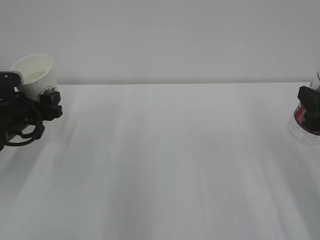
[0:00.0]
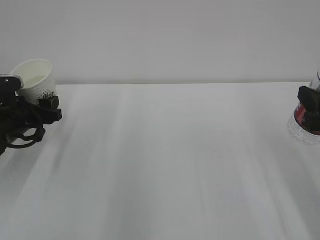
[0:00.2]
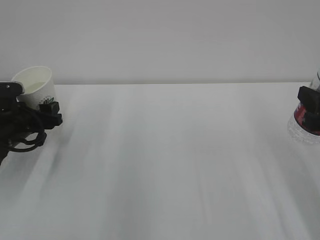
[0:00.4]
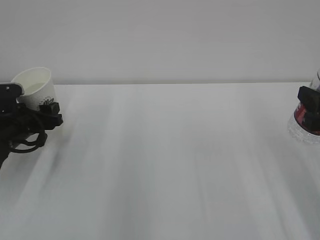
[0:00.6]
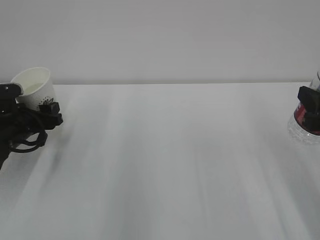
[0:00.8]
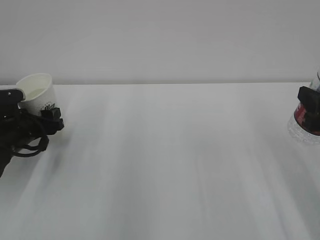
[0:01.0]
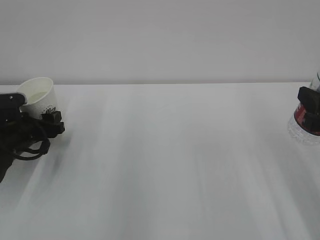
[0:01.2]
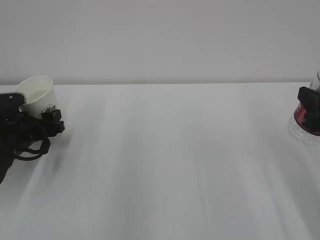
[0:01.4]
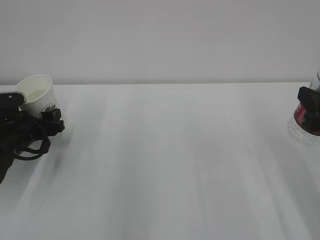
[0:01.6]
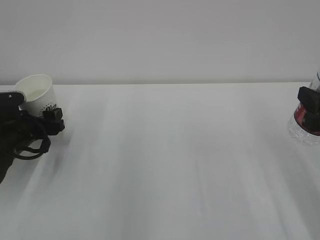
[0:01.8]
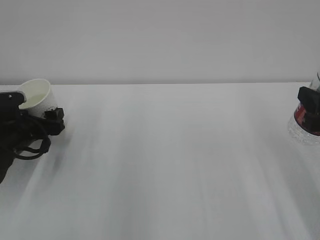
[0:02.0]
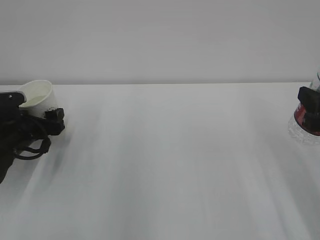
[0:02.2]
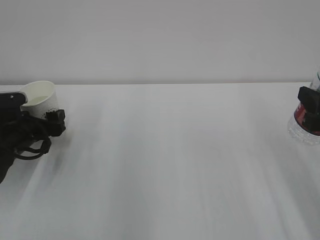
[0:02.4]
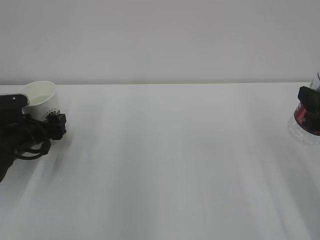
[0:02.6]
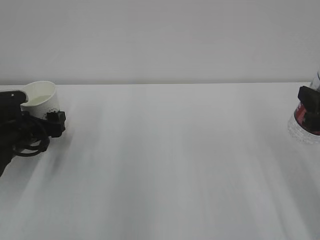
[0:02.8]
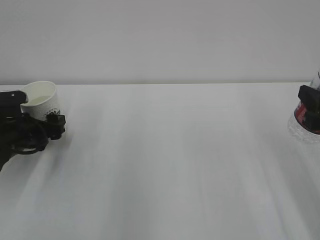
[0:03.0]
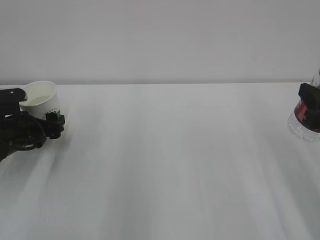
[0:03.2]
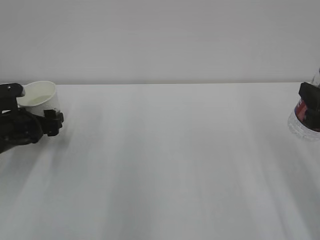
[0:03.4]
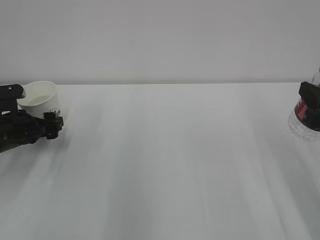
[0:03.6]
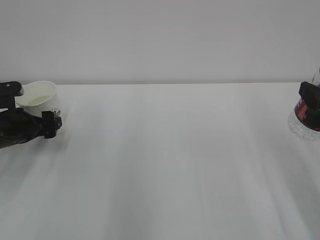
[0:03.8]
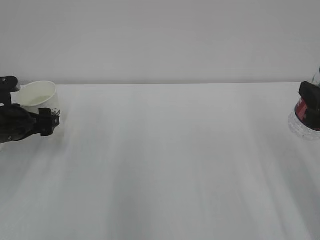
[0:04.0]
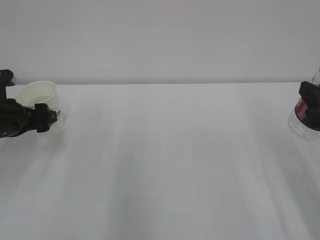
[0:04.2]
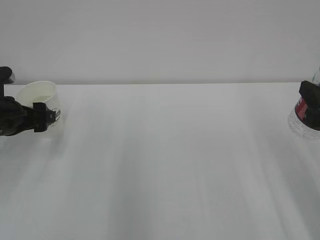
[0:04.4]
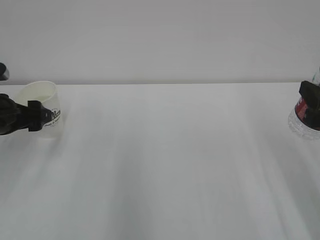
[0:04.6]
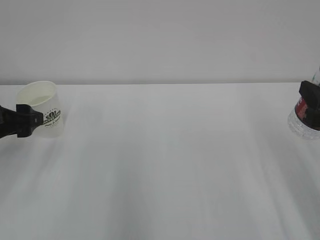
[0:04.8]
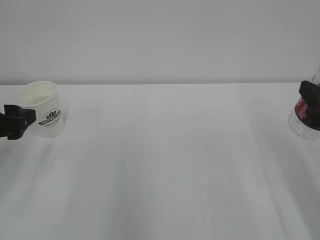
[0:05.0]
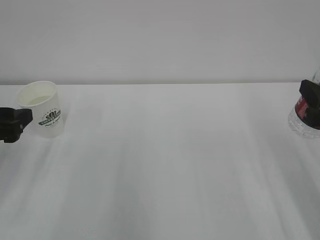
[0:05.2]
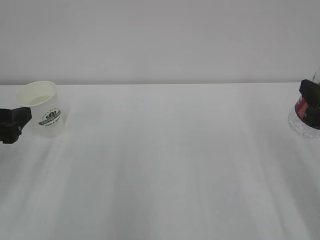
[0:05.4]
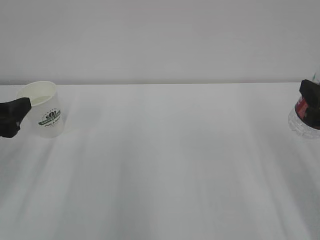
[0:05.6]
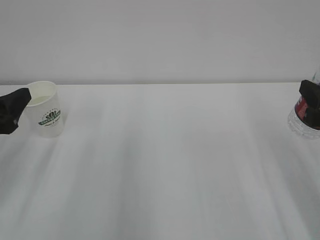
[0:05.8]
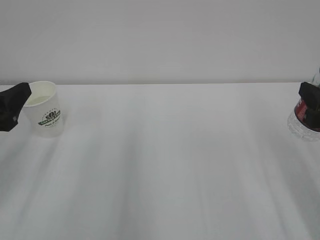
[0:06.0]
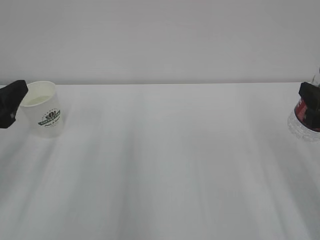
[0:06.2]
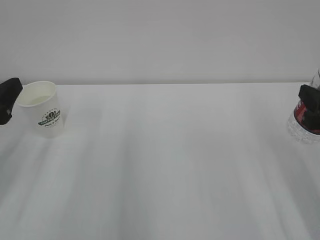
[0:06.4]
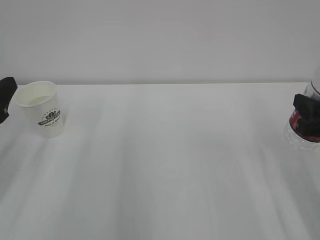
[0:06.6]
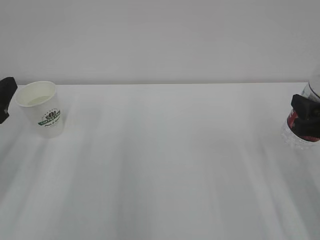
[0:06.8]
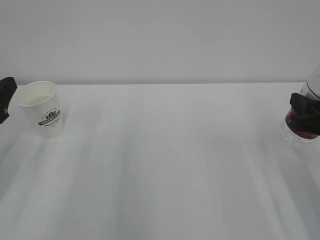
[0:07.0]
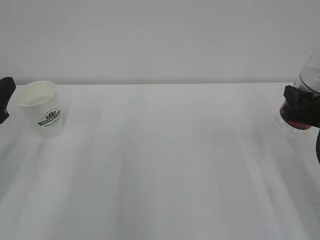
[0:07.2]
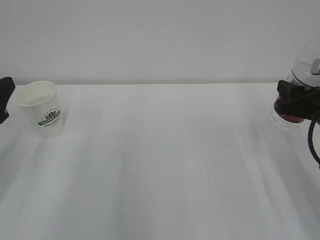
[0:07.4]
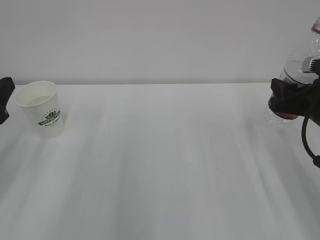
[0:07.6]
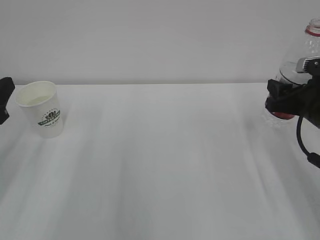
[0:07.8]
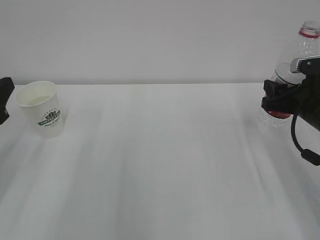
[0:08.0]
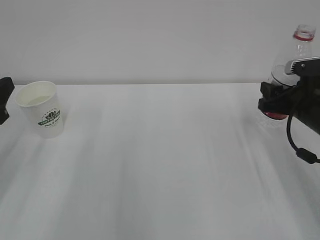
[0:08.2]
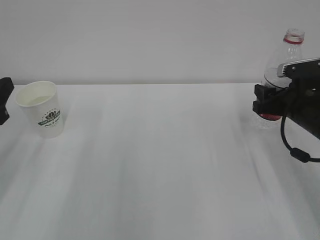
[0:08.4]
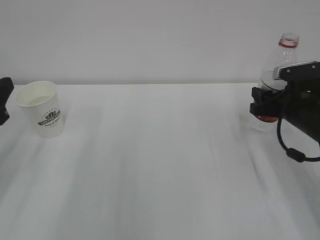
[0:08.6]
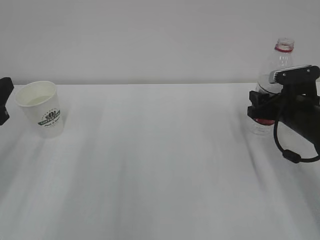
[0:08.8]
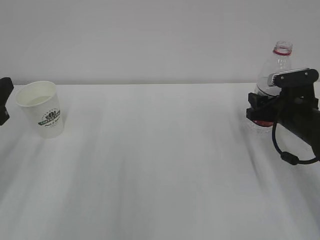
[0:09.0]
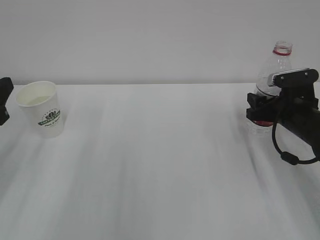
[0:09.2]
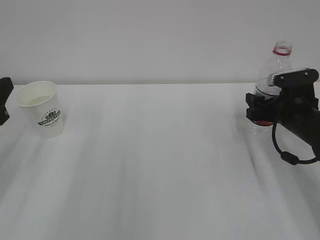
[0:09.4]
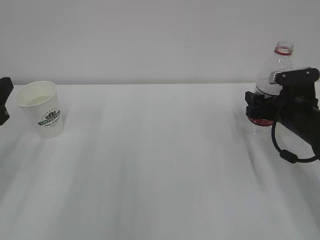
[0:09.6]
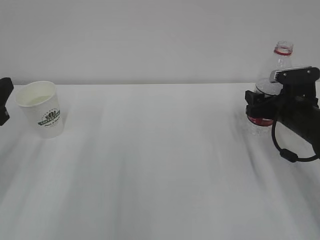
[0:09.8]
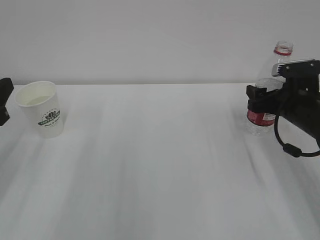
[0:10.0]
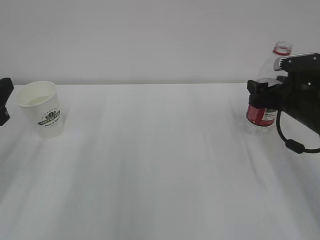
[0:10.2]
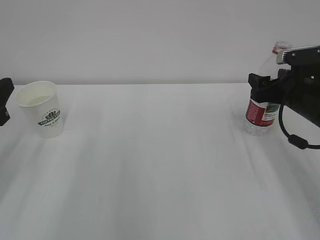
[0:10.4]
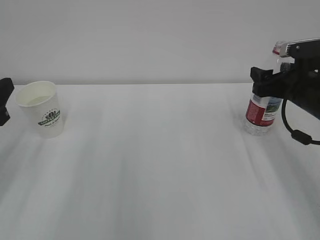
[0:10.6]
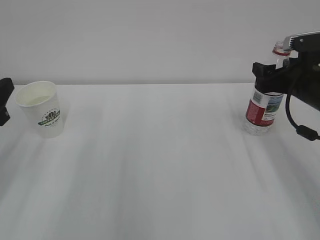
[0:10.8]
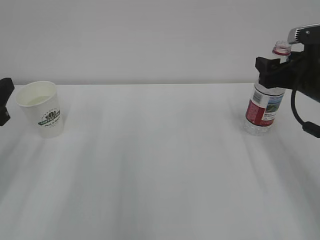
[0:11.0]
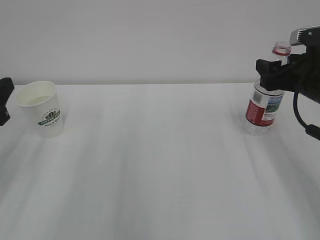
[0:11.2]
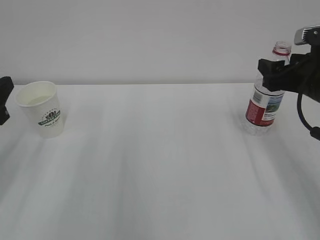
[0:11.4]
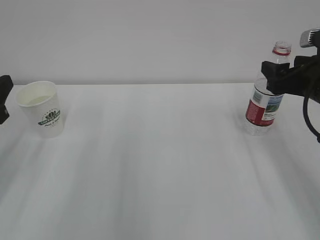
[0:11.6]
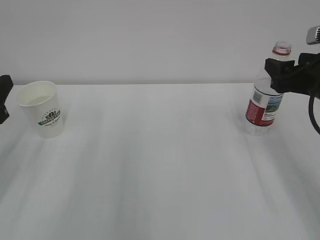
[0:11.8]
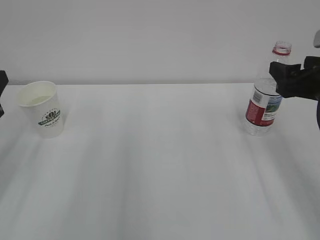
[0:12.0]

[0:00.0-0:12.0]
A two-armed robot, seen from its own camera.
0:00.0 to 0:01.6: The grippers move only a little.
0:01.6 to 0:03.0: The left gripper opens up.
0:03.0 to 0:04.4: The left gripper travels upward by approximately 10 cm.
0:04.4 to 0:06.0: The left gripper is displaced backward by some 10 cm.
0:06.0 to 0:07.6: The right gripper heads forward, covering roughly 10 cm.
0:07.6 to 0:09.0: The right gripper shifts roughly 10 cm downward and forward.
0:09.0 to 0:10.4: The right gripper opens.
0:10.4 to 0:12.0: The right gripper heads backward and upward, covering some 10 cm.

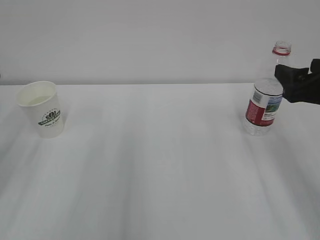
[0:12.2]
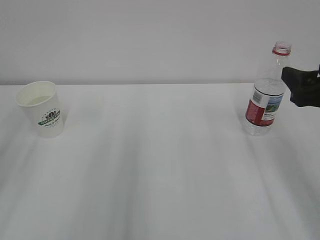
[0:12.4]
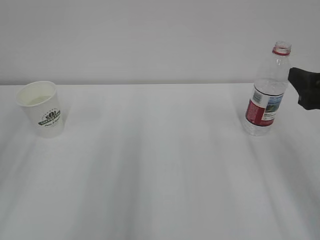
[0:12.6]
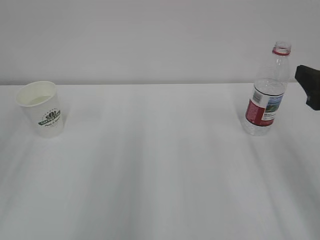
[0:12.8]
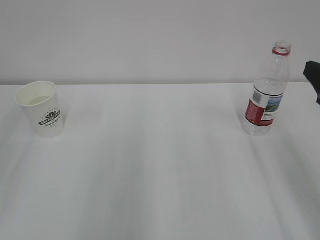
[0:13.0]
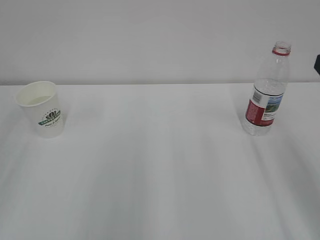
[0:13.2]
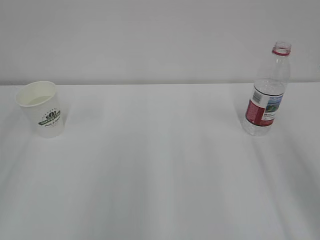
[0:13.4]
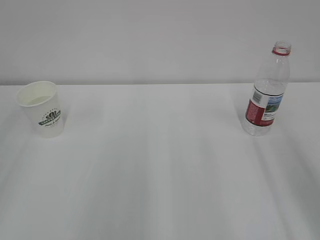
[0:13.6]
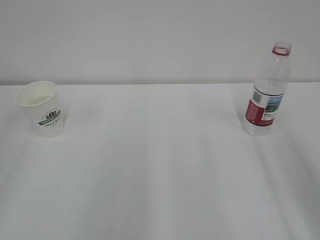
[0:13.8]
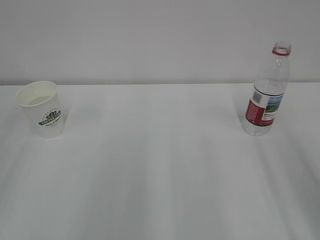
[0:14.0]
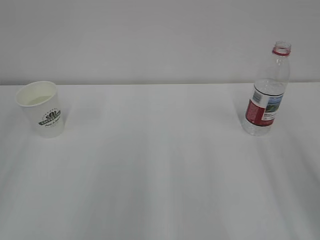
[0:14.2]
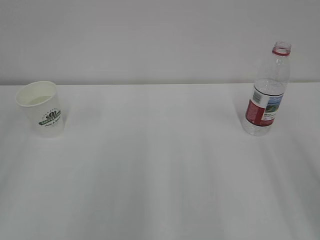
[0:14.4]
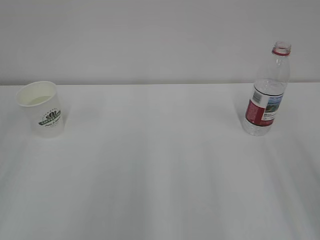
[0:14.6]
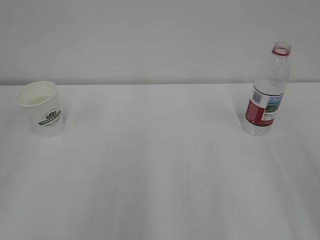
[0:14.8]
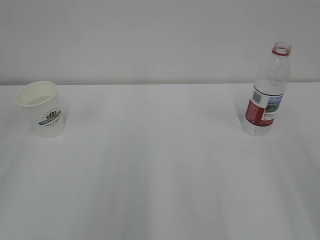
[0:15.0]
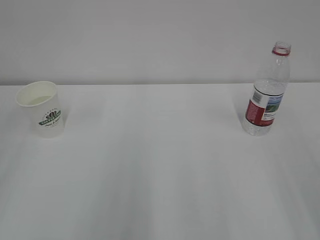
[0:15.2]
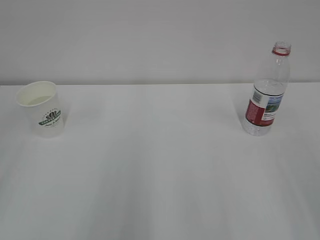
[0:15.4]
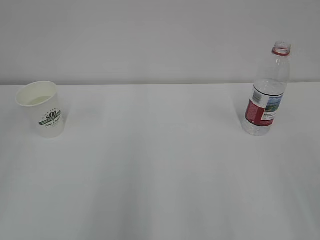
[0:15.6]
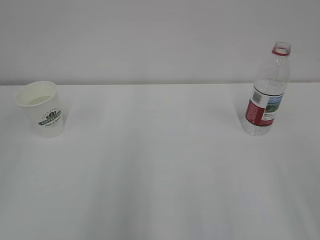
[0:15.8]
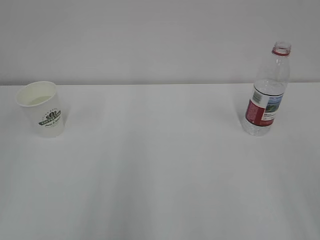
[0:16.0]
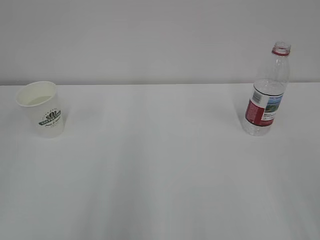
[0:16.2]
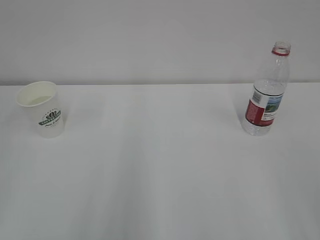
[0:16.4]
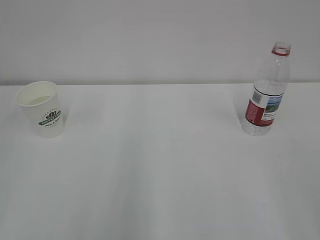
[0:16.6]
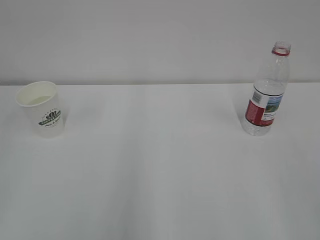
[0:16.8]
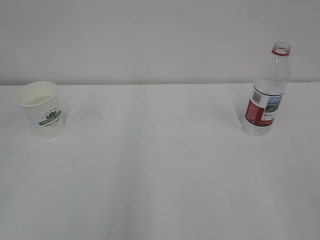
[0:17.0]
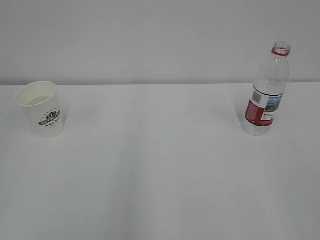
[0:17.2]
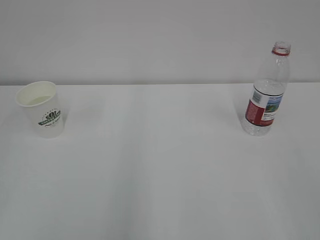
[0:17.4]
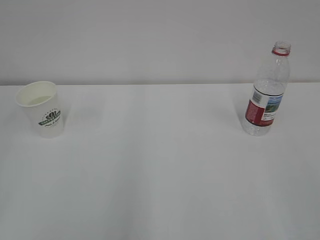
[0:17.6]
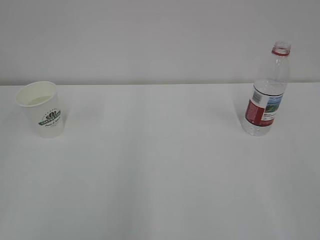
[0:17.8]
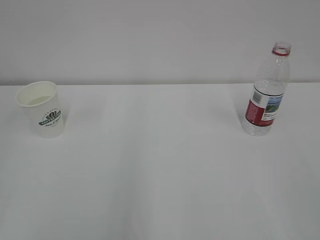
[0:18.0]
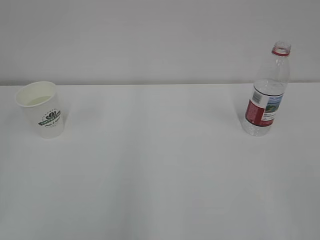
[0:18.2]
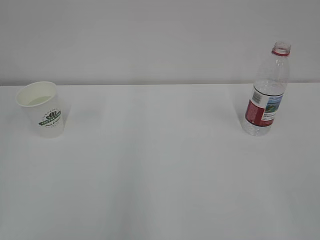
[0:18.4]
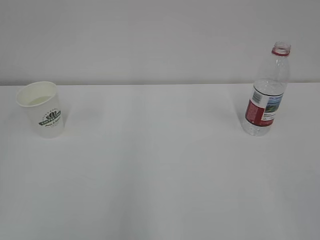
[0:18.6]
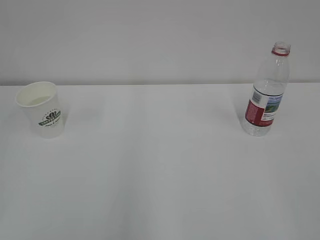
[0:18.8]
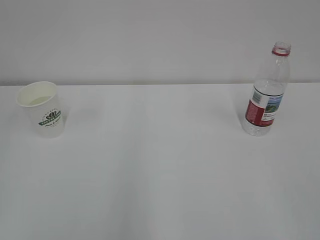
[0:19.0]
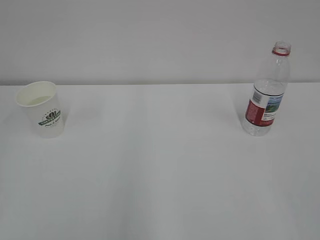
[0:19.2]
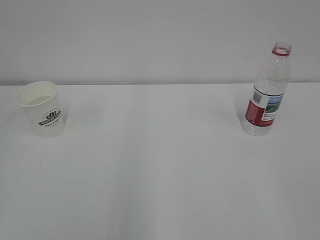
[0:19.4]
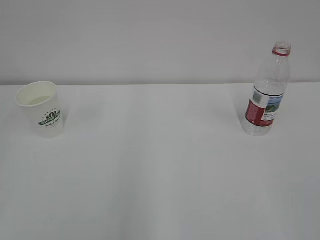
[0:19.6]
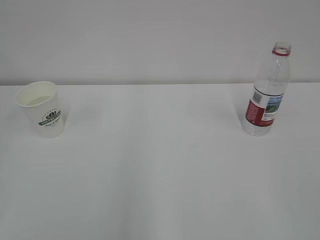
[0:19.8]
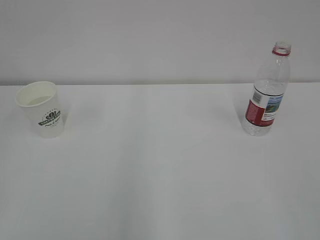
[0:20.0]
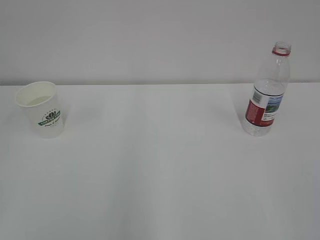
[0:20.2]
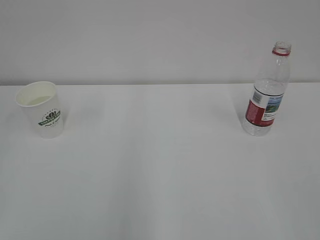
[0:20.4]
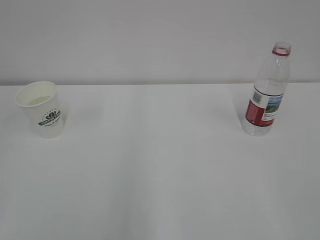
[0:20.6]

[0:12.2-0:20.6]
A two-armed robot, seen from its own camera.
0:12.2 to 0:13.6: The right gripper heads backward and upward, covering about 10 cm.

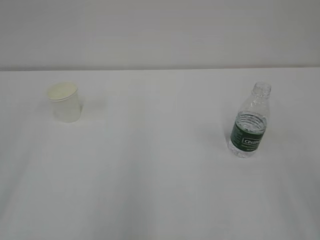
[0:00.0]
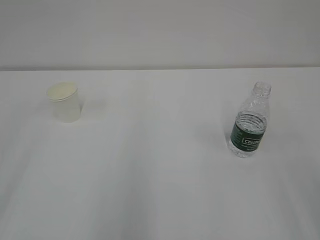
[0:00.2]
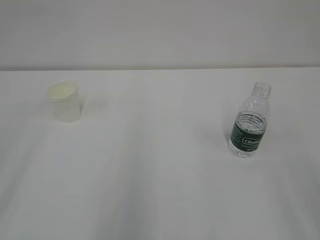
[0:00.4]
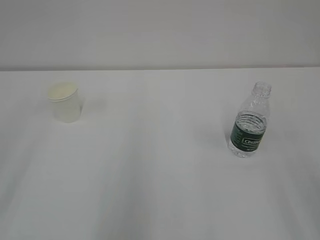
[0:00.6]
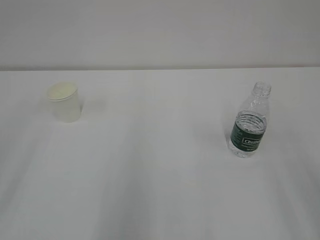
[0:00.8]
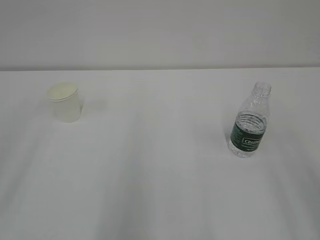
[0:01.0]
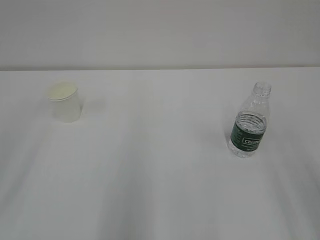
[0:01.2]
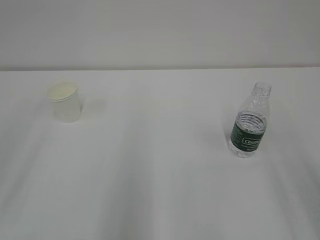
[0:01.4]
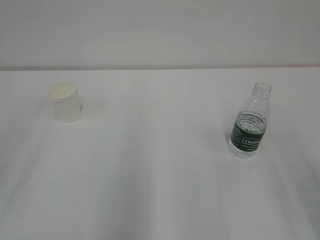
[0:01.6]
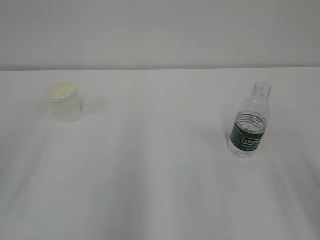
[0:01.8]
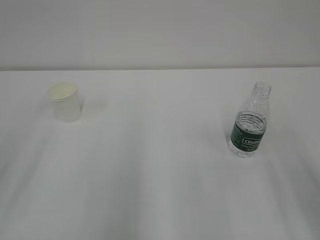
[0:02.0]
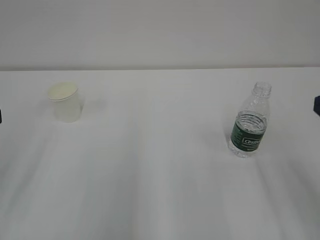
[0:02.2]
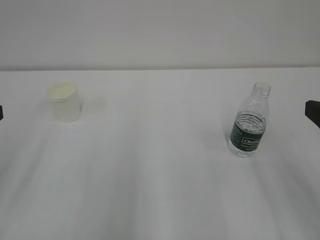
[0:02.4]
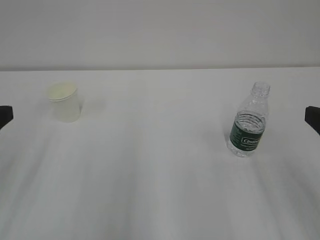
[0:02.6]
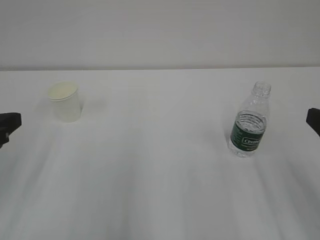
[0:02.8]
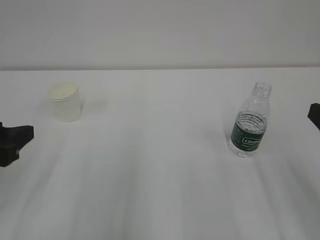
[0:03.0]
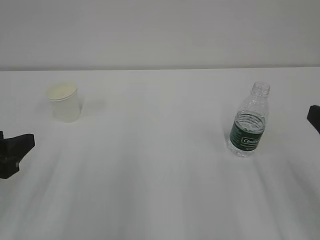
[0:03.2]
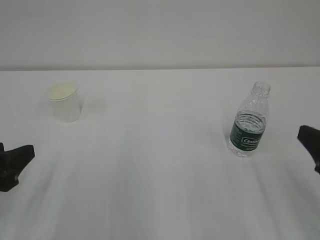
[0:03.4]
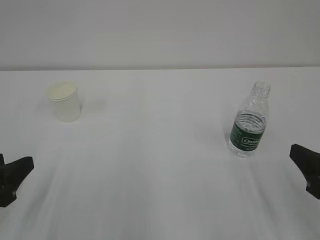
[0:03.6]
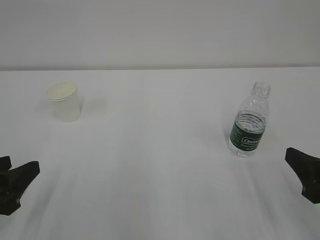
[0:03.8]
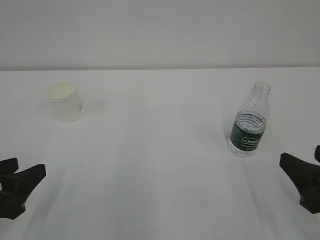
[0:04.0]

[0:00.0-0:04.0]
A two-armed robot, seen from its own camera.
0:02.6 to 0:04.0: Both grippers travel together downward, some 10 cm.
